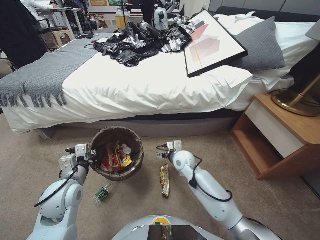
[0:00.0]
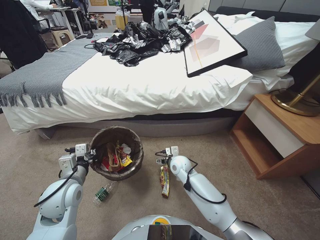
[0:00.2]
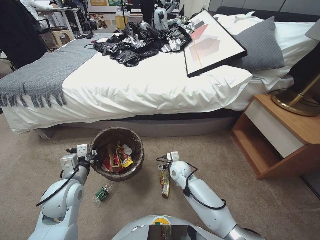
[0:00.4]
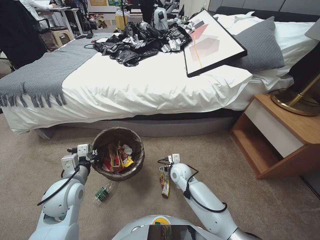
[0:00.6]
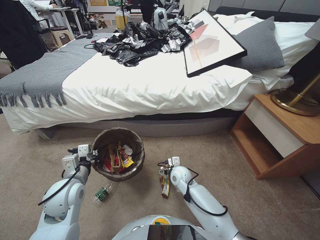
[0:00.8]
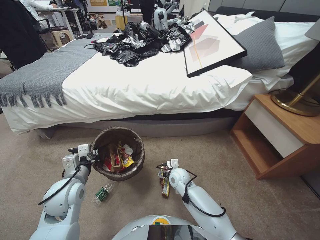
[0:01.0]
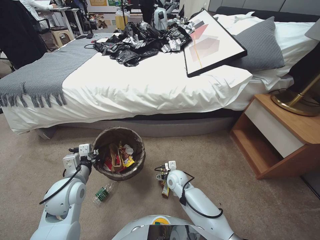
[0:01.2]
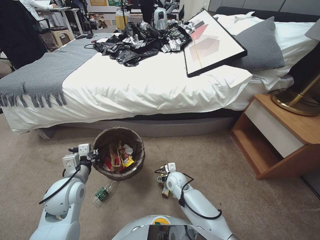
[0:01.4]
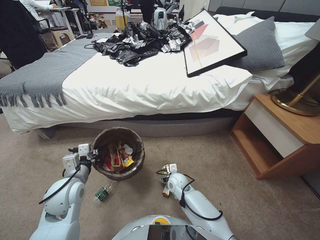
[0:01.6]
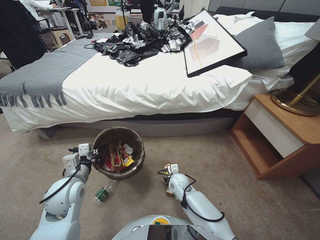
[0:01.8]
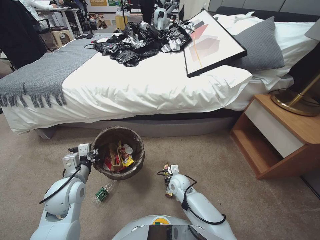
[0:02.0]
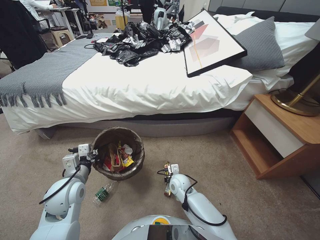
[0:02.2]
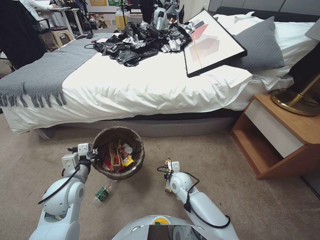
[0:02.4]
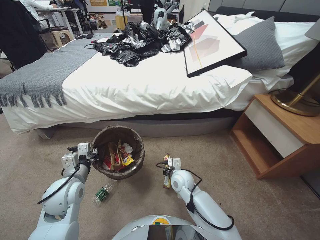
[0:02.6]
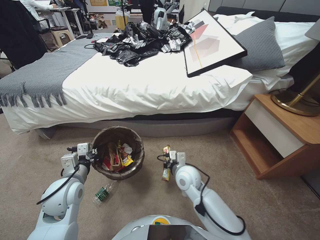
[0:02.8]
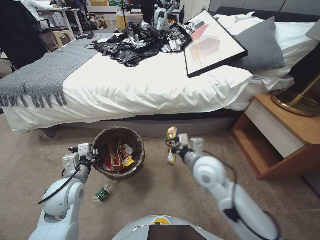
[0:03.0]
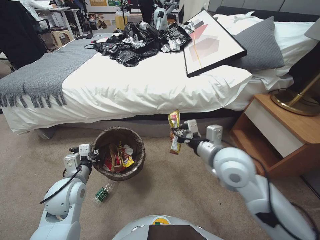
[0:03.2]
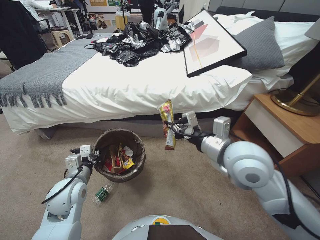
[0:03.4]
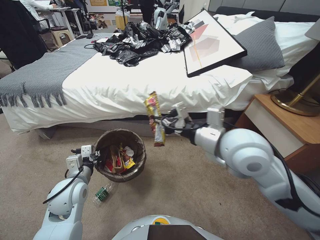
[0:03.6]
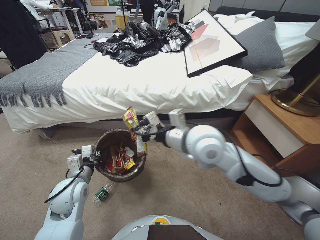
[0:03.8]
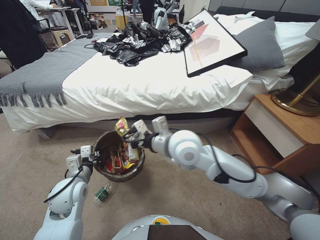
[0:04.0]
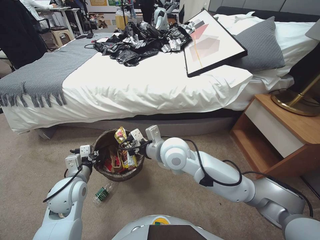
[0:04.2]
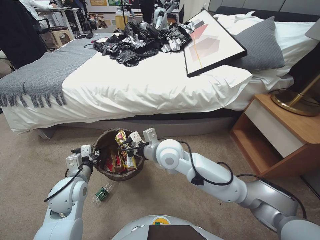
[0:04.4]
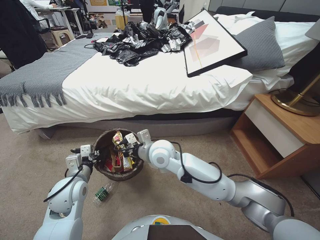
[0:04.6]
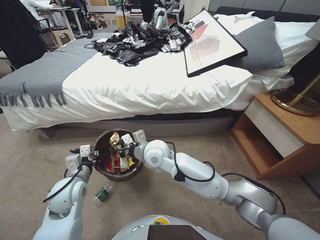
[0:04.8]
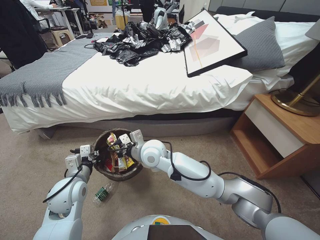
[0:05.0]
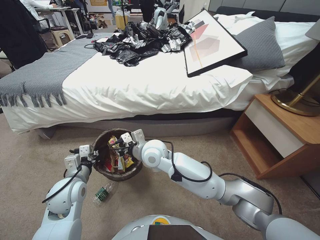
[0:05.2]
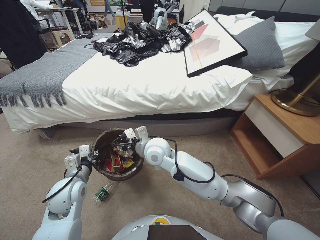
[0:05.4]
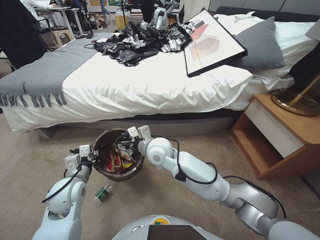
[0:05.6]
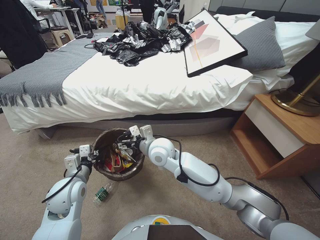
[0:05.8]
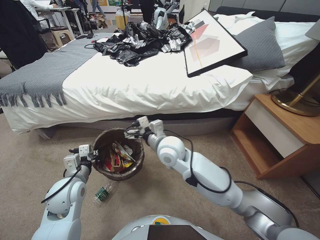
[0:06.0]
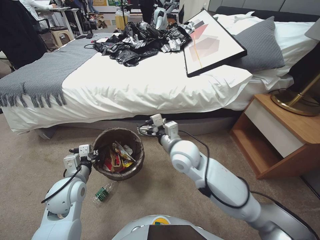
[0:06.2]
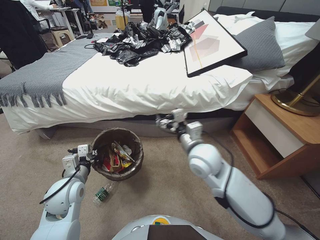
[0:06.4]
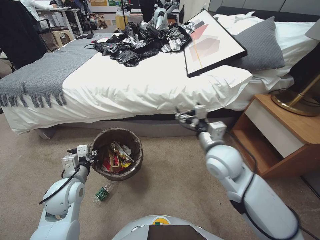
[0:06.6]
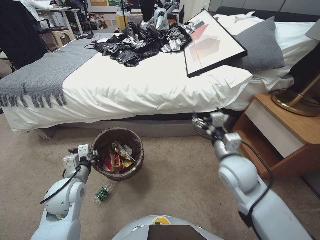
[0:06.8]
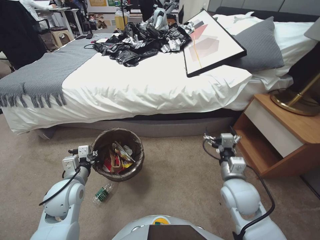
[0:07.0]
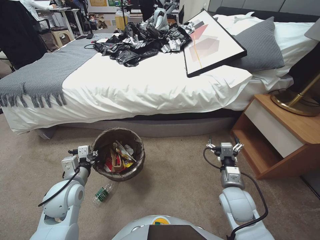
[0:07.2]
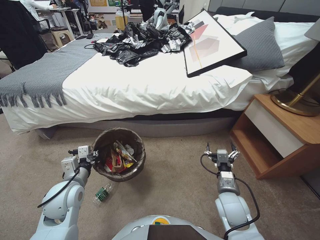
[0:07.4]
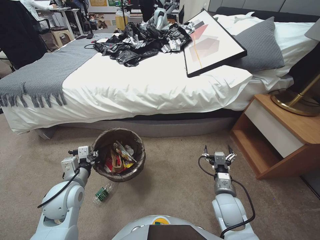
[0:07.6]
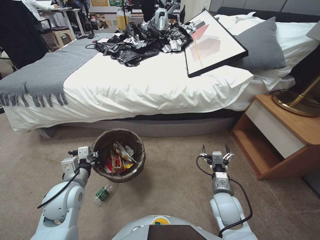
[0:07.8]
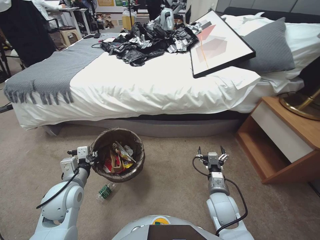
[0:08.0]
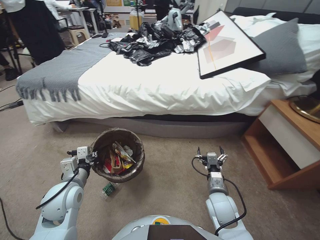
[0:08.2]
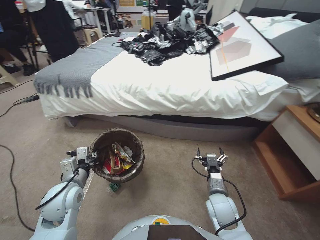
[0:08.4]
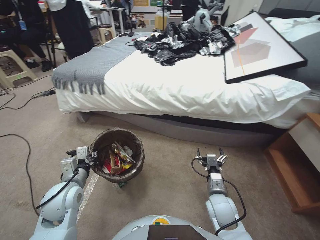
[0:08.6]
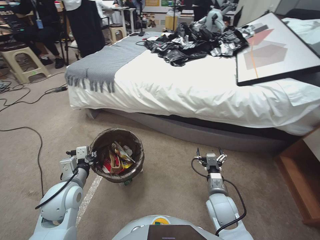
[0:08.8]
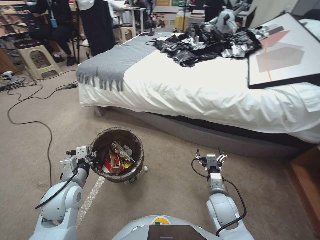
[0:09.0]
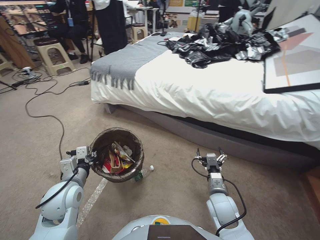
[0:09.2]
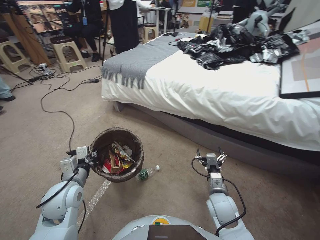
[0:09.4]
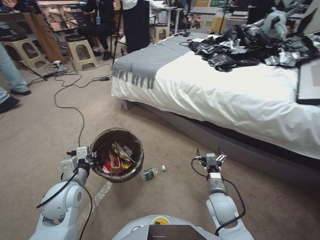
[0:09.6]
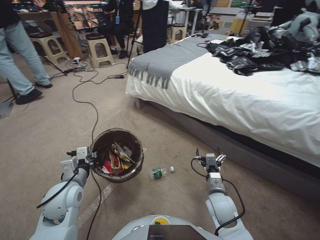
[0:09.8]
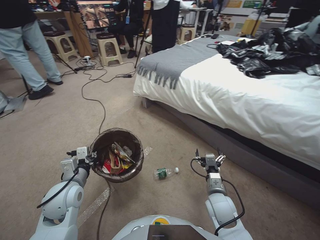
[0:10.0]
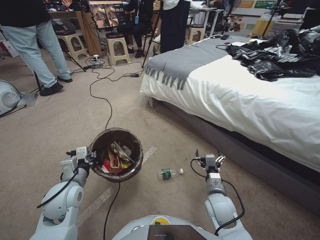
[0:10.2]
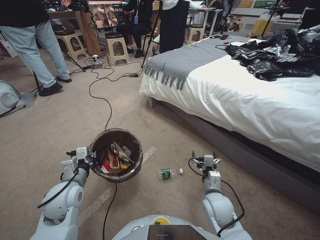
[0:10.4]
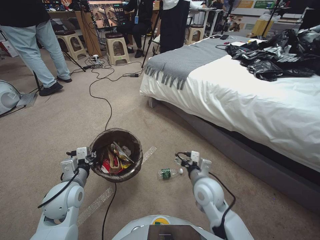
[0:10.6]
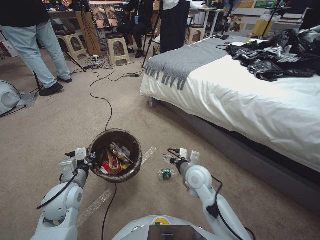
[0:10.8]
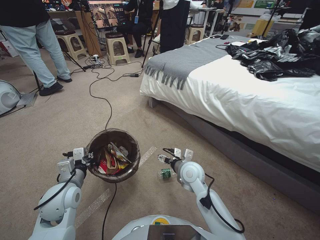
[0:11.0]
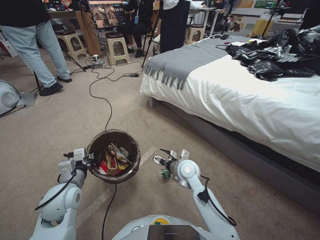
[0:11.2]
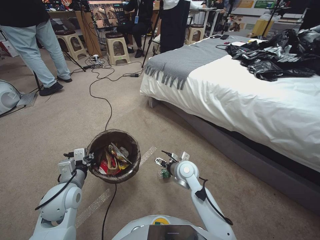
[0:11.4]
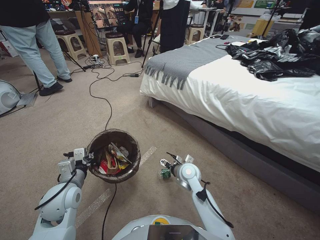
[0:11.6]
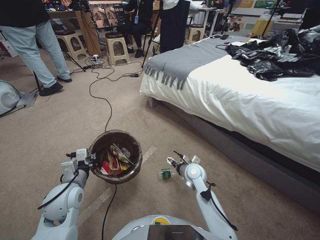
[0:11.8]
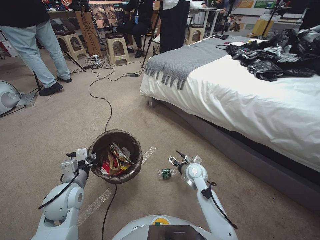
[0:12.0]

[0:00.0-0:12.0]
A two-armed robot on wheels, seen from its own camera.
Task of the whole recording: Pick up the trash bin, then pick up the garbage from the floor and place it into the trash bin.
0:00.0 to 0:01.6: The right gripper shifts roughly 15 cm downward.
0:01.6 to 0:03.0: The right gripper is displaced upward by approximately 20 cm, and closes up.
0:03.0 to 0:04.4: The right gripper heads upward and to the left, covering about 15 cm.
0:04.4 to 0:06.0: The right gripper shifts by about 5 cm, and opens.
0:06.0 to 0:07.6: The right gripper travels to the right, backward and downward by some 30 cm.
0:10.4 to 0:12.0: The right gripper moves forward, approximately 10 cm.

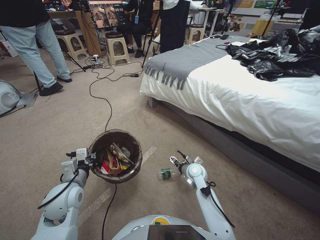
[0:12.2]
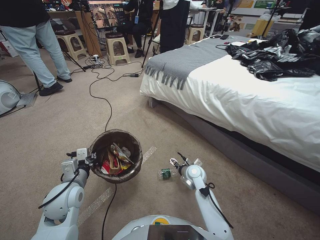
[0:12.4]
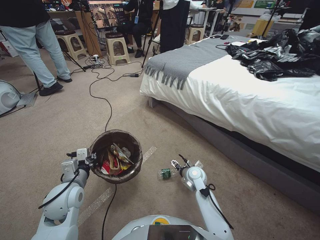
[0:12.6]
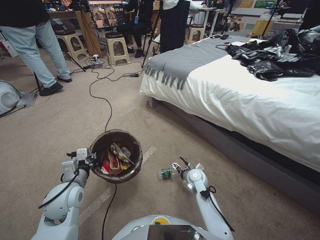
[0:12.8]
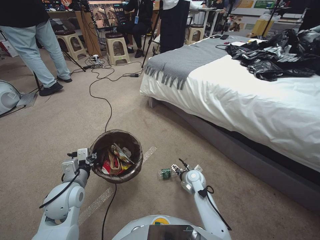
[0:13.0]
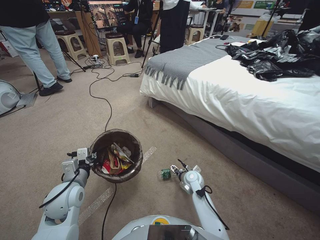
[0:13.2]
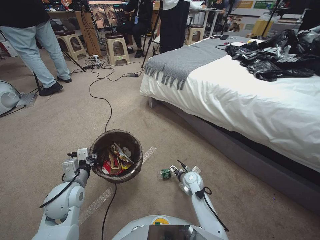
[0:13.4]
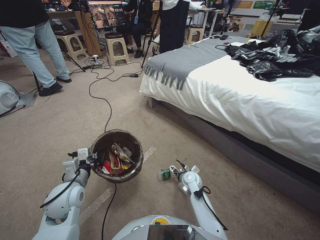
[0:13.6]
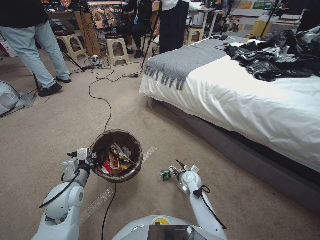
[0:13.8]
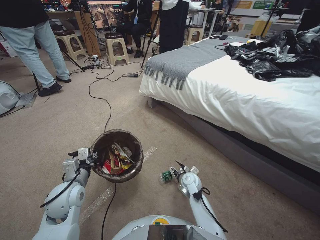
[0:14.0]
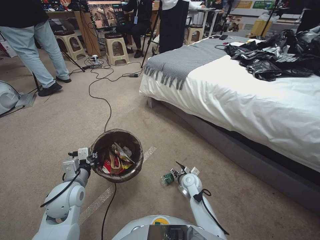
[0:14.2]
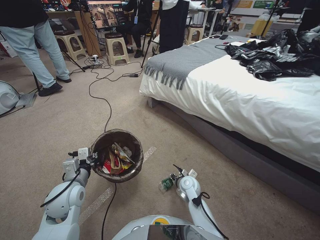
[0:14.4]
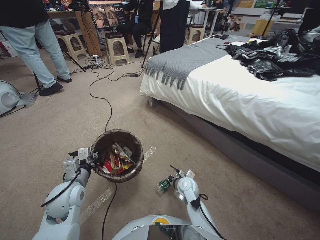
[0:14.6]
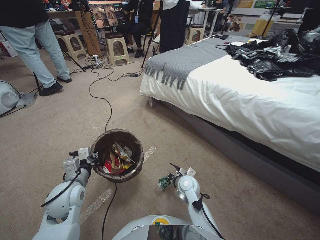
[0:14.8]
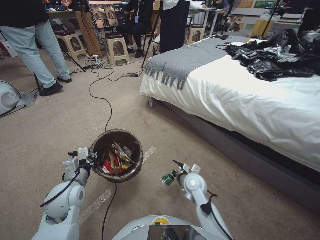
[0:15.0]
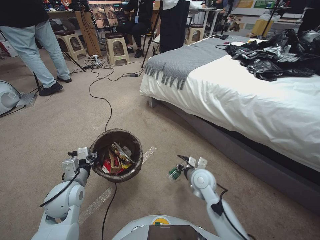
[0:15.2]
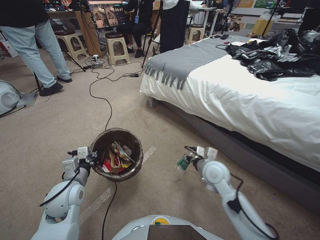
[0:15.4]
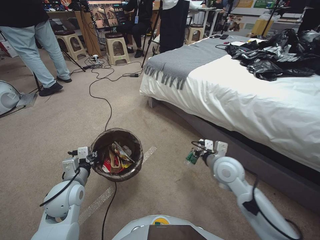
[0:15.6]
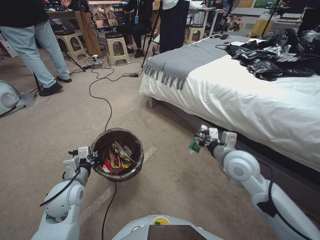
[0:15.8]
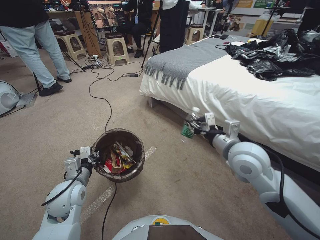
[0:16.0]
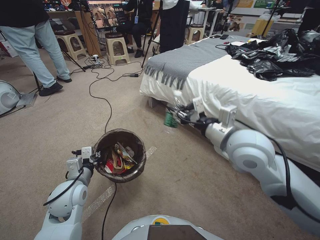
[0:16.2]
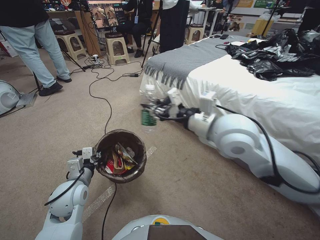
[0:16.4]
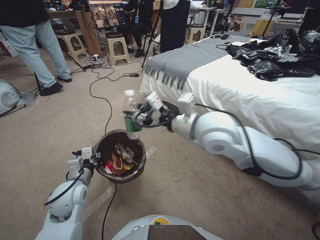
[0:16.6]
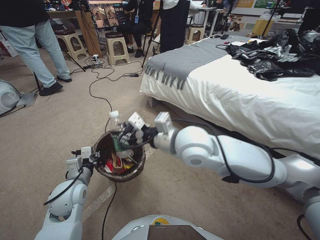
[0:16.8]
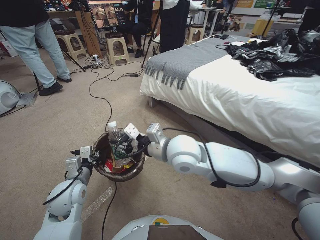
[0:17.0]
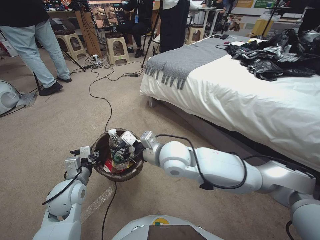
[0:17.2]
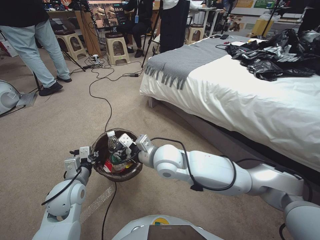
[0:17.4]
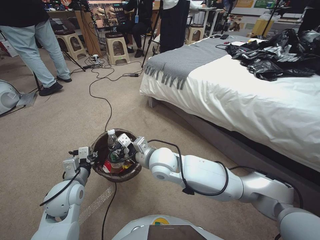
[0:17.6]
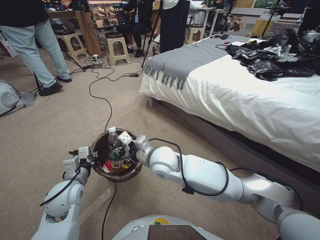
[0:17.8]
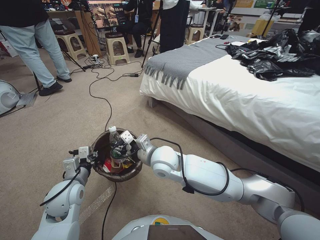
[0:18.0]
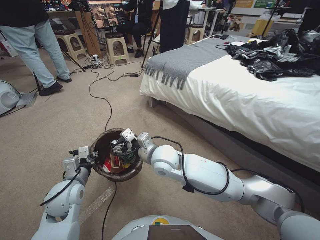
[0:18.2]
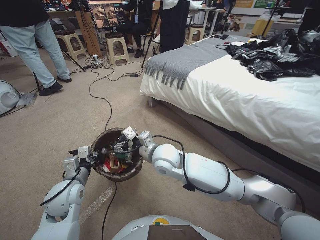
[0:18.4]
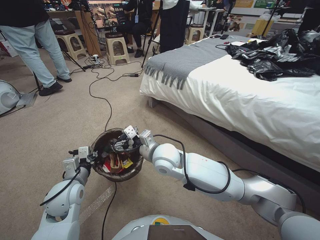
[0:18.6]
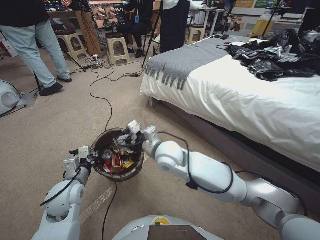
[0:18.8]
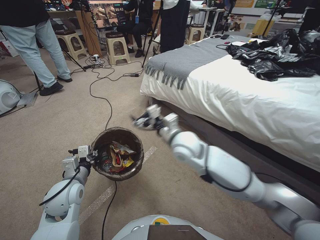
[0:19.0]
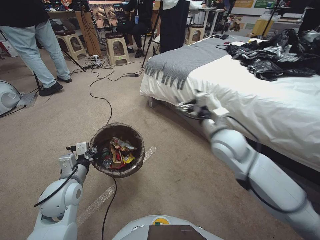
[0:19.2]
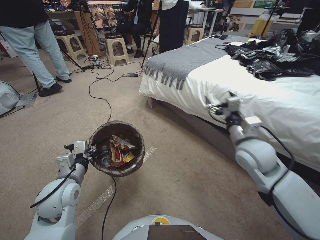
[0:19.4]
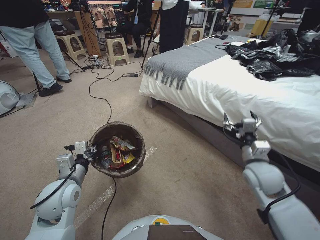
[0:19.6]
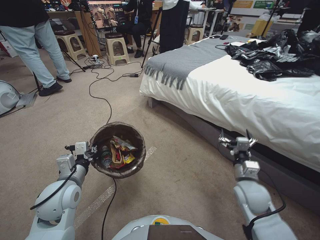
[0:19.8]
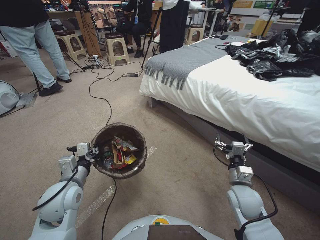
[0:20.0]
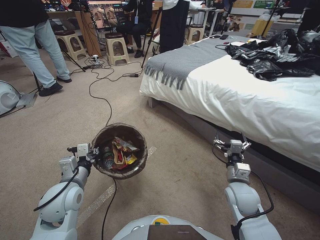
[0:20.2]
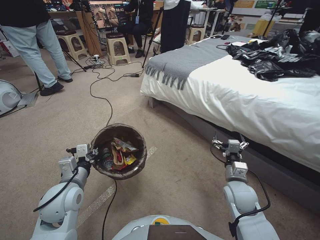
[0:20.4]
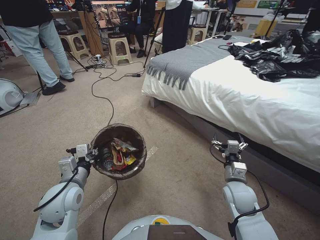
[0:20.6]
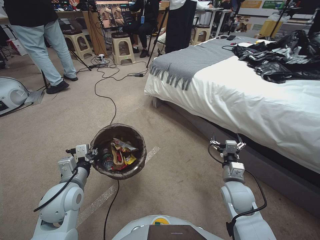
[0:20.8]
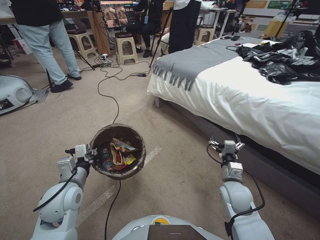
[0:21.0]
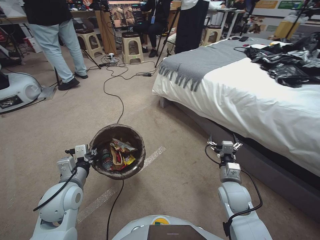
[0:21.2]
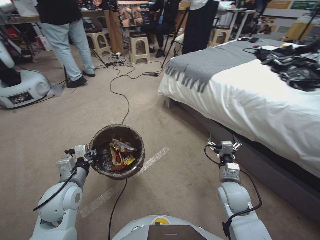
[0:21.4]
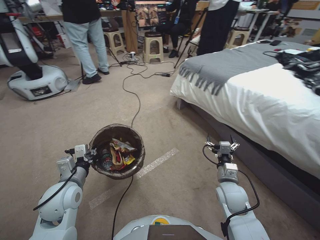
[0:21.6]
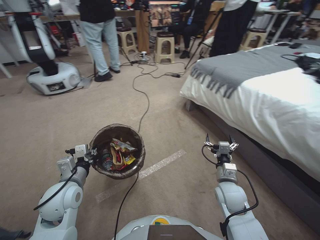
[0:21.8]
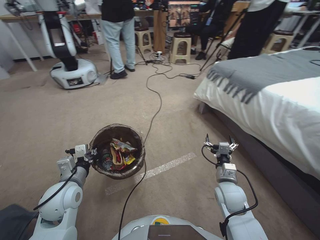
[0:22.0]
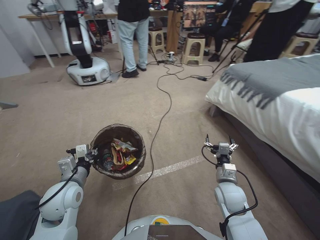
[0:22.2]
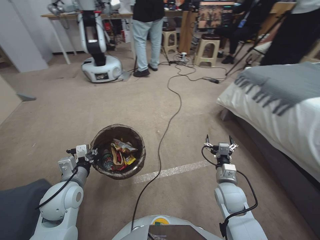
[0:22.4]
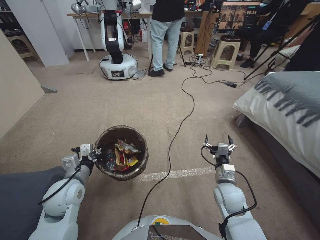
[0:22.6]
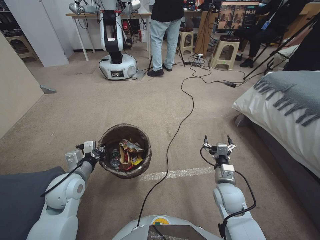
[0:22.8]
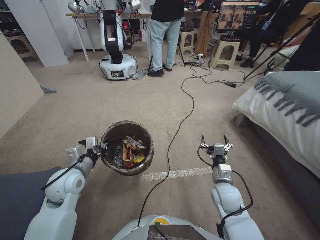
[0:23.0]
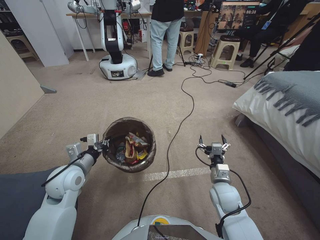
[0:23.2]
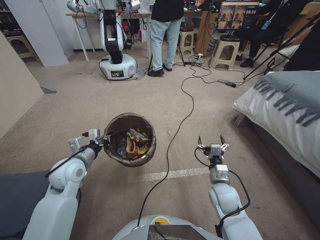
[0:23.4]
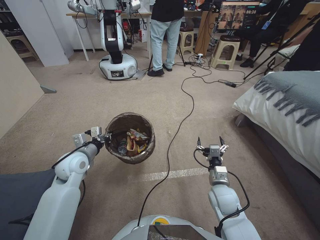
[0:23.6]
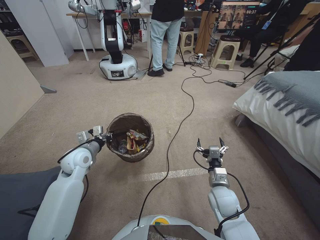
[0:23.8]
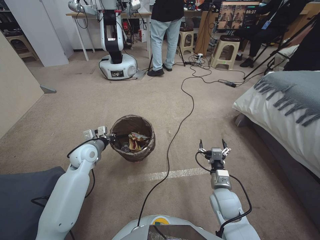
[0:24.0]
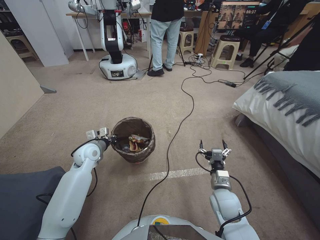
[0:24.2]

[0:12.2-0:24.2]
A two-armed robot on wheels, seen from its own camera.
Task of the whole recording: Pick up the trash bin, then pick up the garbage from the floor and place it into the trash bin.
0:12.2 to 0:13.8: The right gripper travels downward by approximately 10 cm.
0:13.8 to 0:15.2: The right gripper goes some 10 cm upward, and closes.
0:15.2 to 0:16.6: The right gripper goes approximately 30 cm upward.
0:16.6 to 0:18.2: The right gripper shifts some 20 cm downward and to the left.
0:18.2 to 0:19.8: The right gripper is displaced to the right by roughly 30 cm, and opens.
0:19.8 to 0:21.2: The right gripper shifts by some 5 cm.
0:22.6 to 0:24.2: The left gripper travels forward by some 15 cm.
